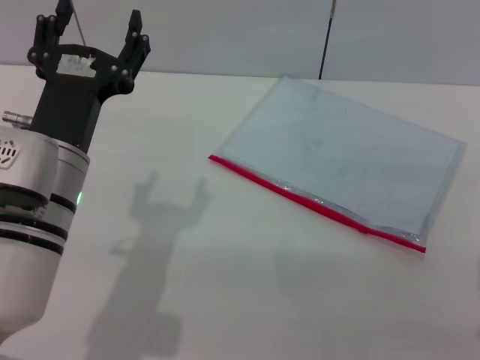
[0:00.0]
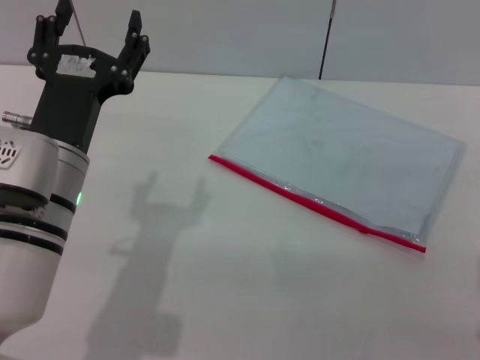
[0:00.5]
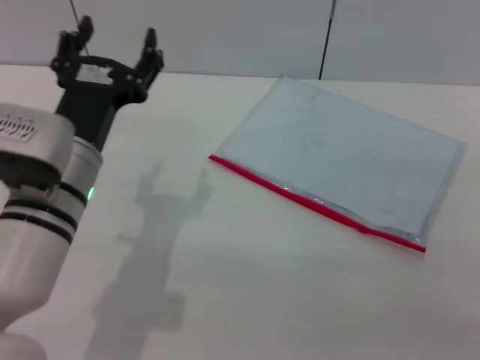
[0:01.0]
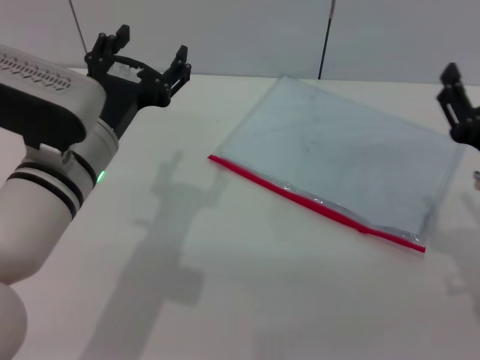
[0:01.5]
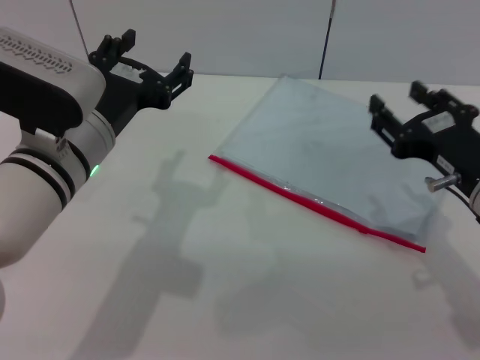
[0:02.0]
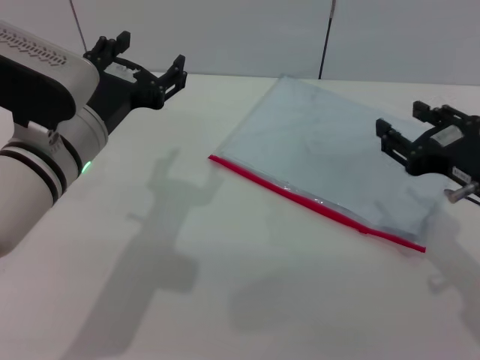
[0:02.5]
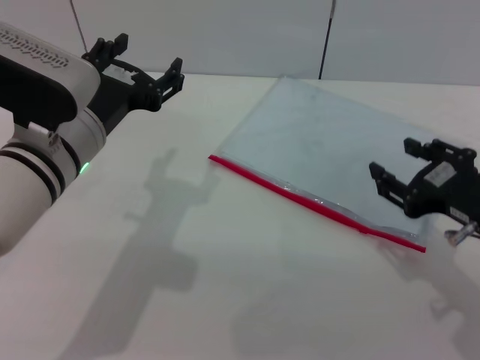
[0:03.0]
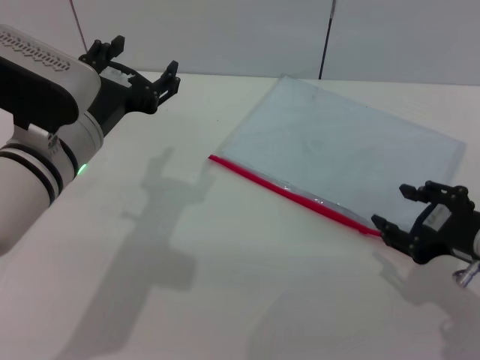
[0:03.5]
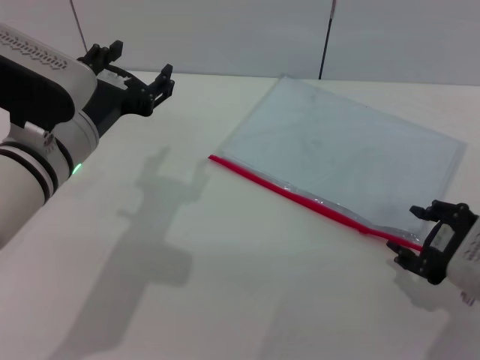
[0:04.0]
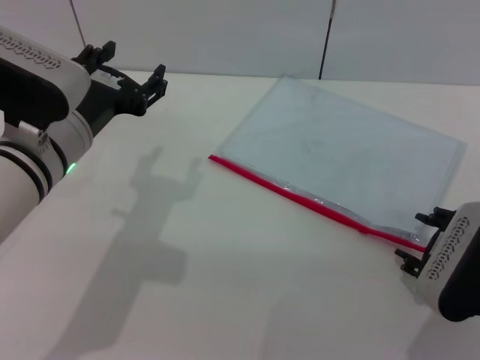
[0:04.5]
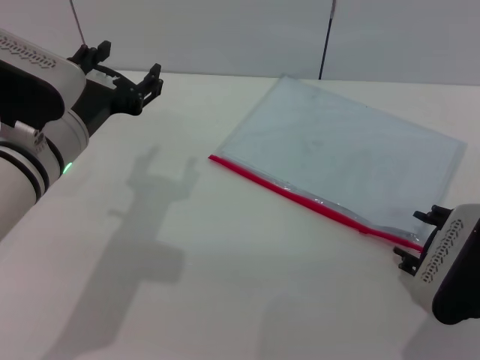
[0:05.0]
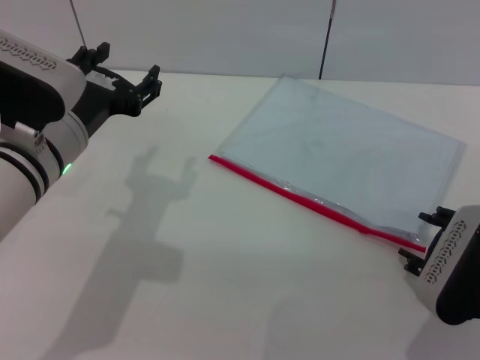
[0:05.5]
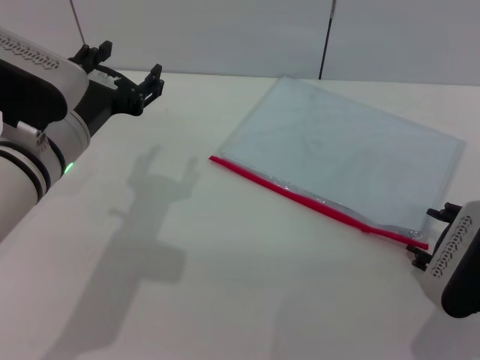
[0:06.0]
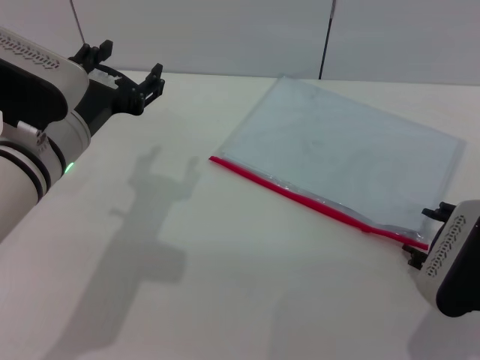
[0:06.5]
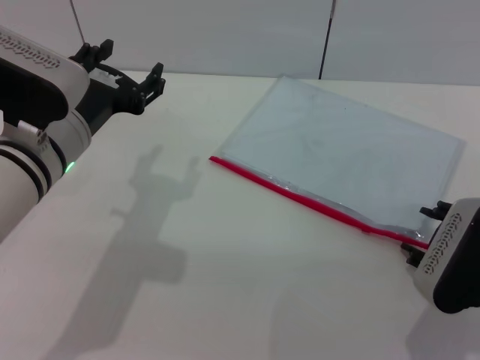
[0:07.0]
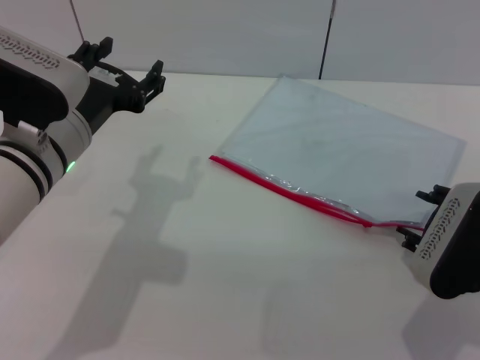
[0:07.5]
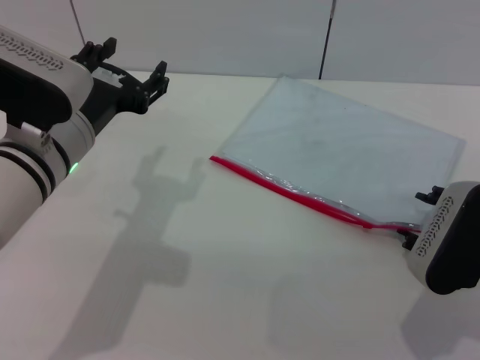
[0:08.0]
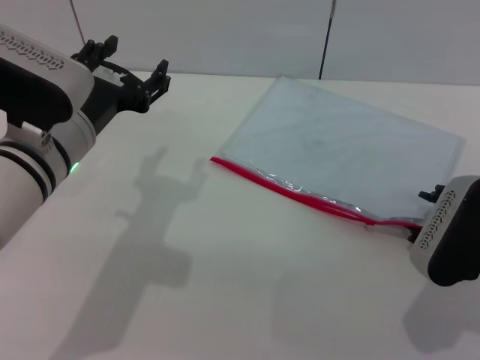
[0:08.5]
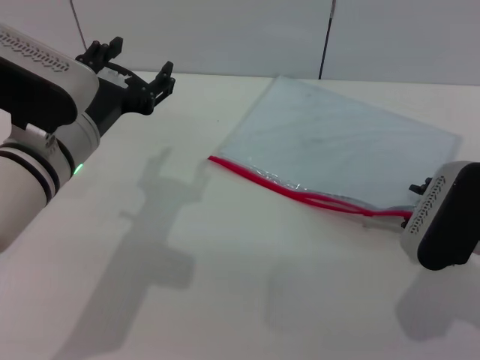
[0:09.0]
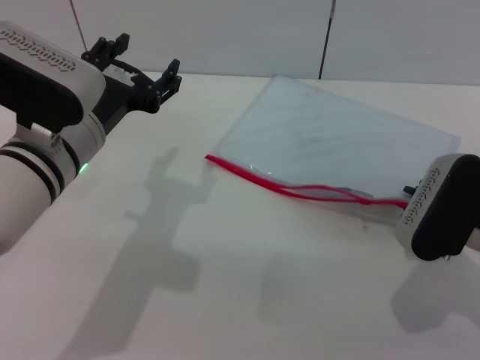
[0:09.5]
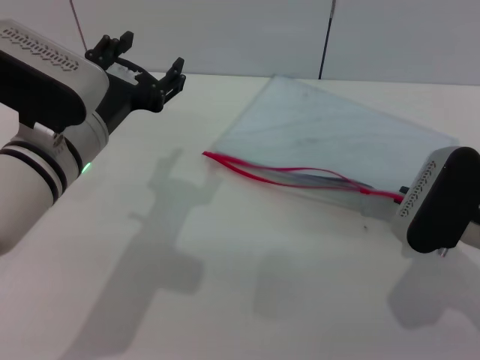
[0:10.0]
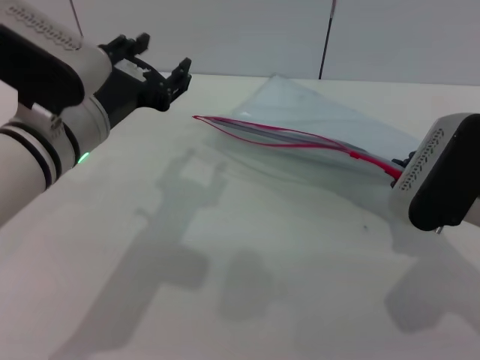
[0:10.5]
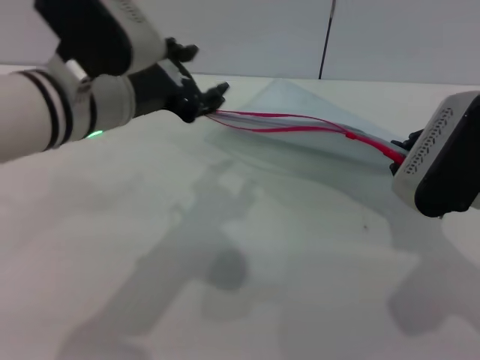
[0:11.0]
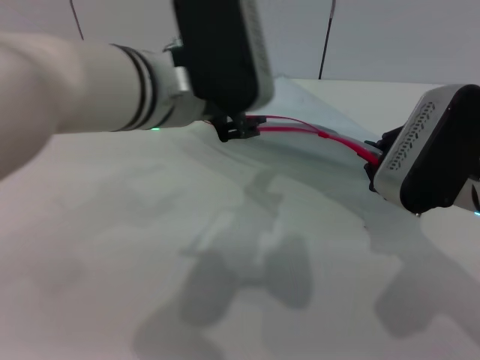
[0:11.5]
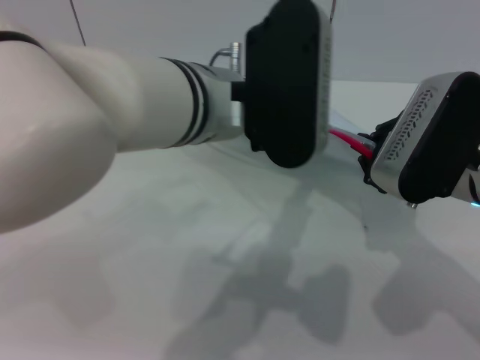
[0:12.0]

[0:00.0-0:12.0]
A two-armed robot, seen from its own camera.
Step, 0:00.0 to 0:10.5: Pick up the transparent plastic bag with the right gripper.
0:00.0 to 0:02.0: The right gripper moves forward, roughly 10 cm.
0:04.0 to 0:08.0: There are only small adjustments of the grippers.
0:08.0 to 0:10.0: The right gripper closes its fingers.
0:10.0 to 0:12.0: The left gripper moves to the right and upward, approximately 15 cm. The right gripper travels upward by some 5 cm.

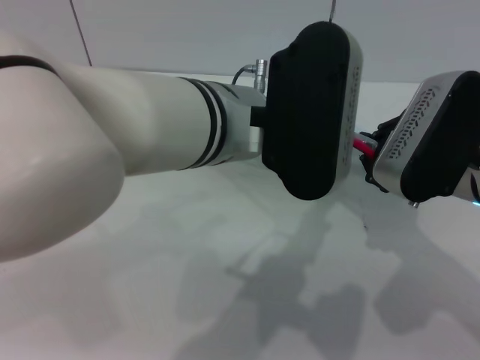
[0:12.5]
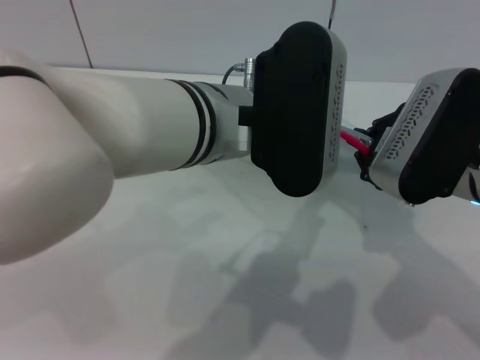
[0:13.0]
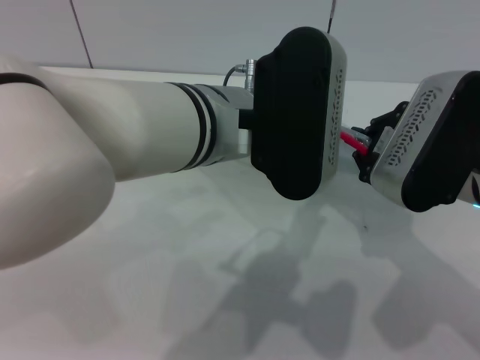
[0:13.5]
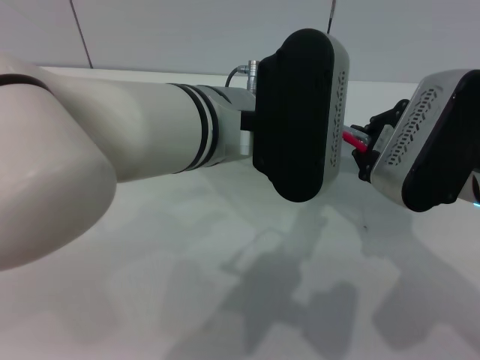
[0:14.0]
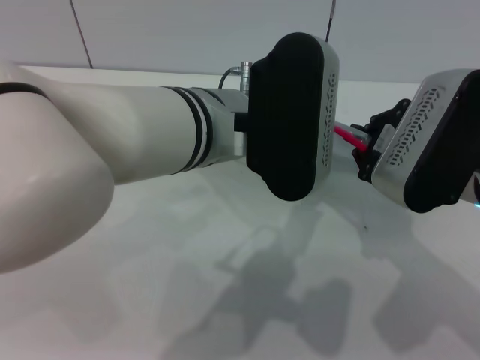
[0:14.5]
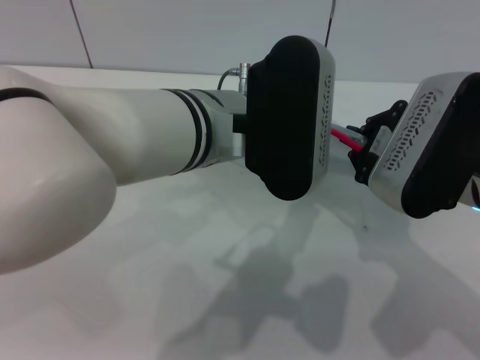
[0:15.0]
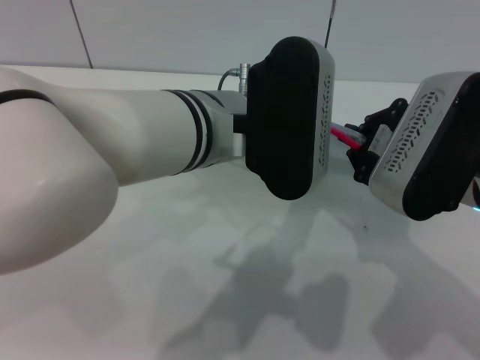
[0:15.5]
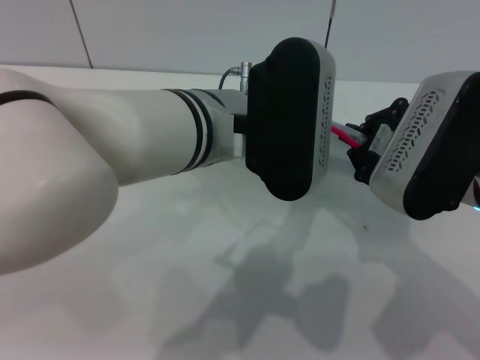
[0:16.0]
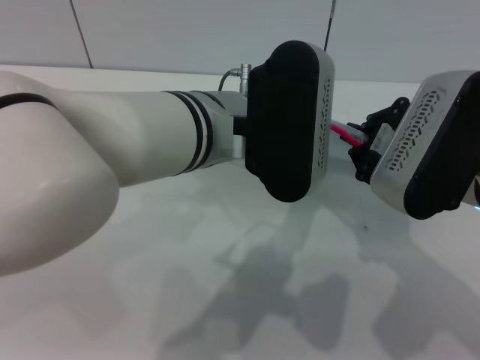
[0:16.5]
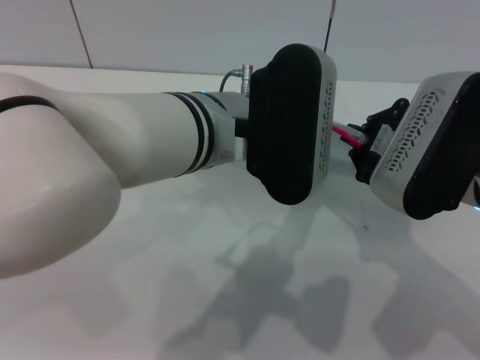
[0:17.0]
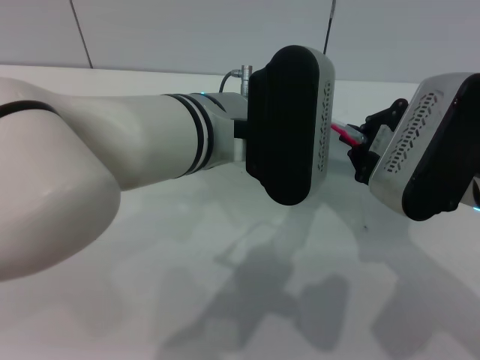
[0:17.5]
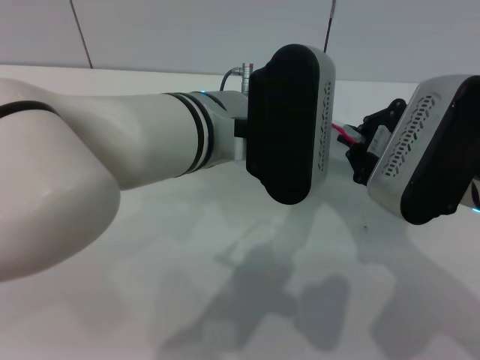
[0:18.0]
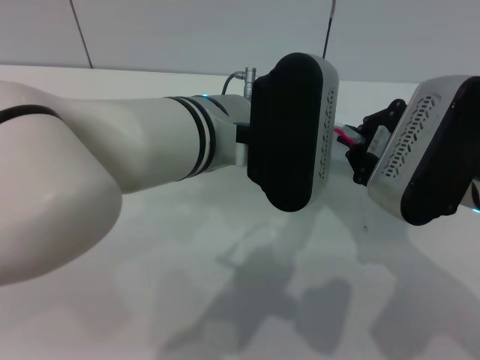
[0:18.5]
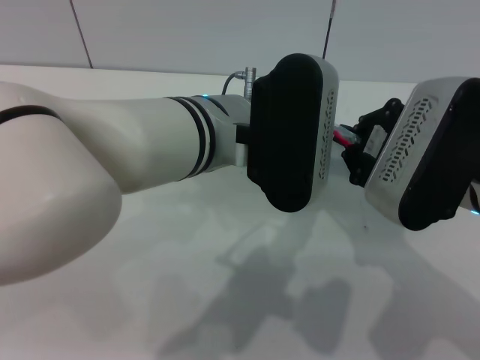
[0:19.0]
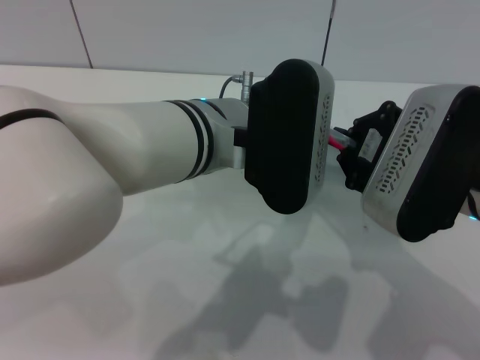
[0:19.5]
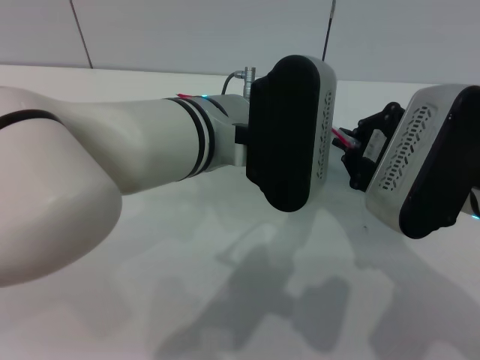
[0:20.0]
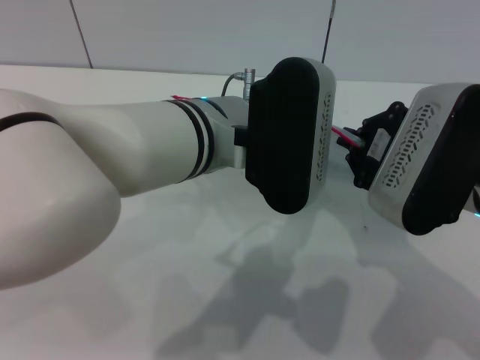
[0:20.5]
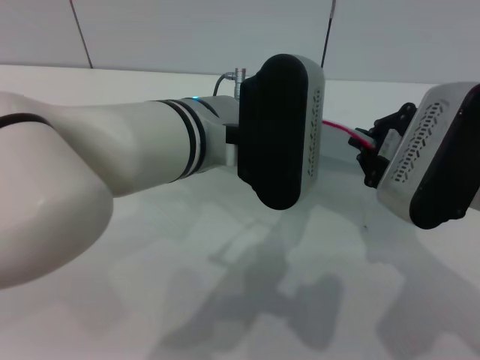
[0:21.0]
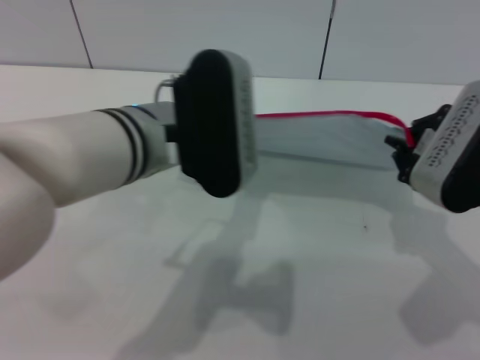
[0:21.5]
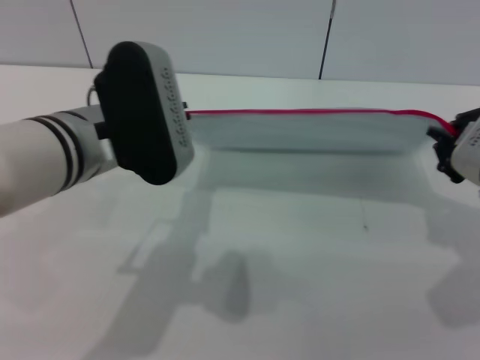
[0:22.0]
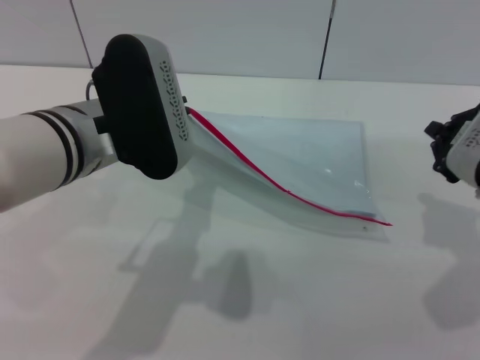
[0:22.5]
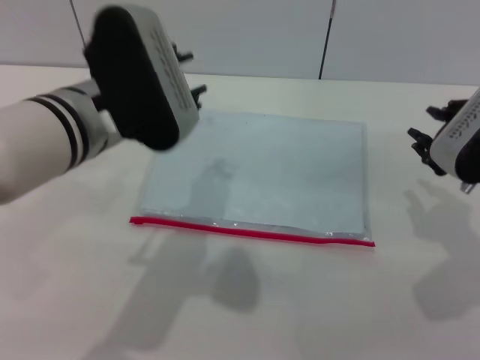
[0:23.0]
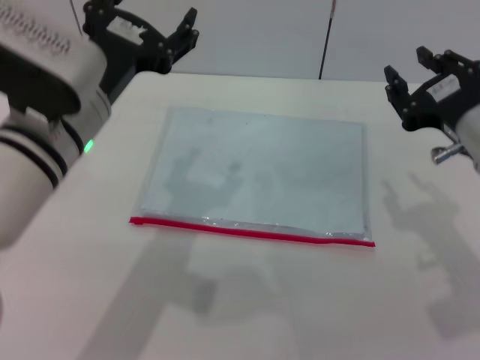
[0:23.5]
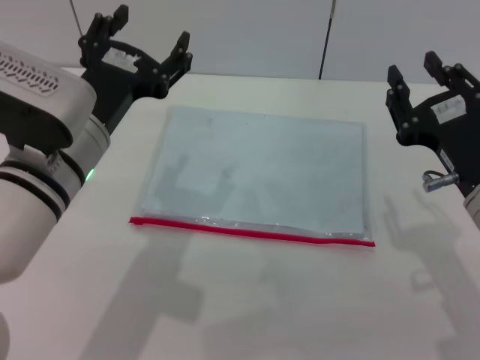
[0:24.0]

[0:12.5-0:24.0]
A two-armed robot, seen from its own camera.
Step, 0:12.5 to 0:22.5: Pulling up the zipper on the transparent plastic bag with the left gripper to close it.
0:12.5 to 0:14.5: The grippers move only a little.
0:14.5 to 0:16.5: The left gripper closes.
0:16.5 to 0:20.0: Both grippers stay put.
0:20.0 to 0:22.0: The right gripper goes some 5 cm to the right. Meanwhile the left gripper is displaced to the left by approximately 10 cm.
0:22.0 to 0:24.0: The left gripper opens; the right gripper changes place by approximately 5 cm, and opens its fingers.

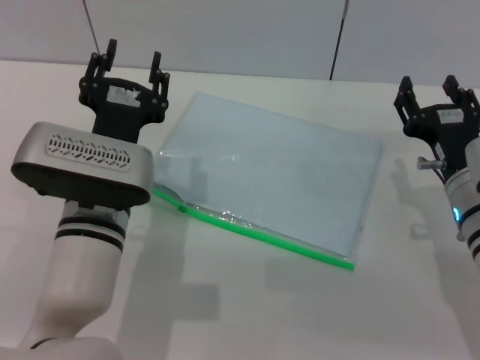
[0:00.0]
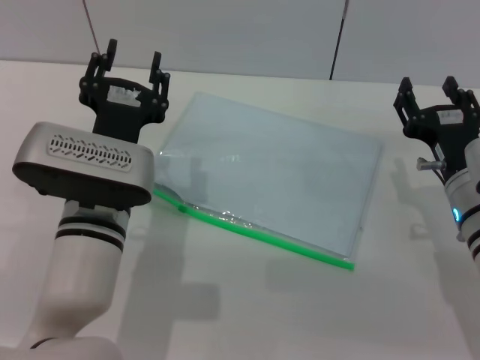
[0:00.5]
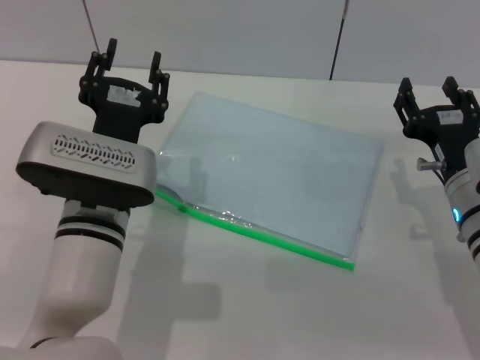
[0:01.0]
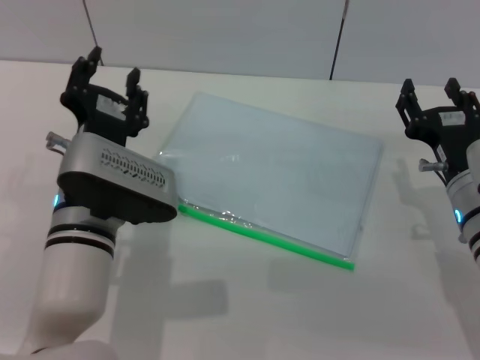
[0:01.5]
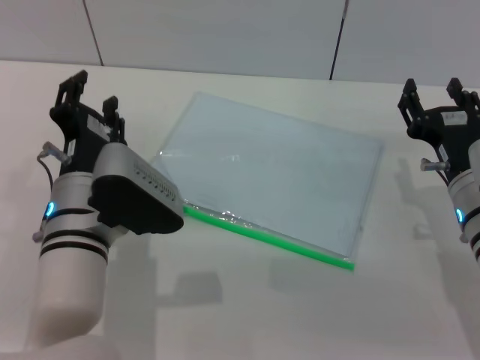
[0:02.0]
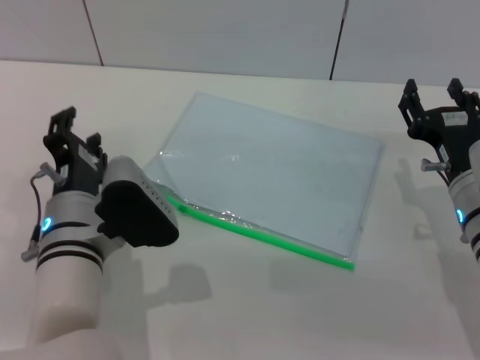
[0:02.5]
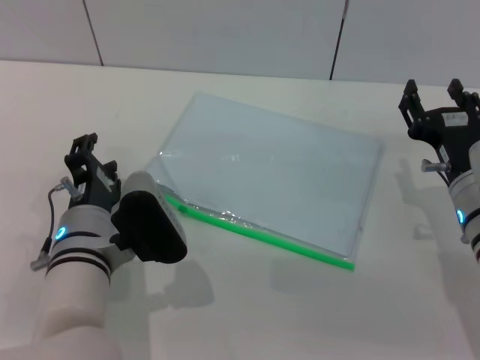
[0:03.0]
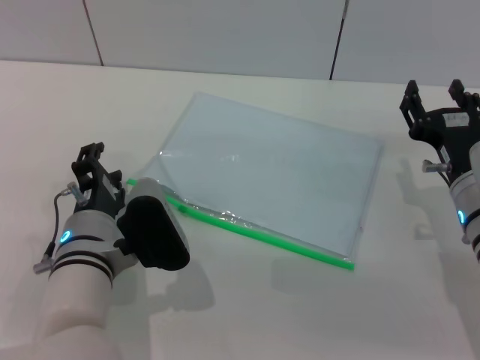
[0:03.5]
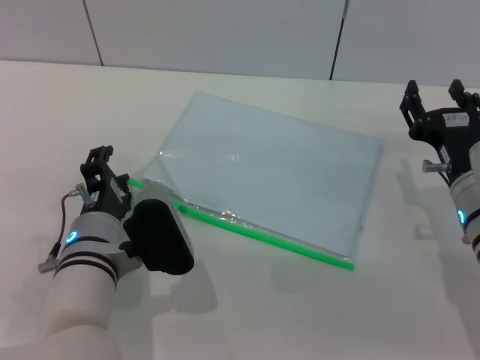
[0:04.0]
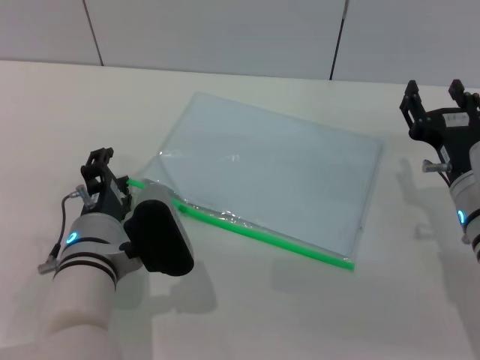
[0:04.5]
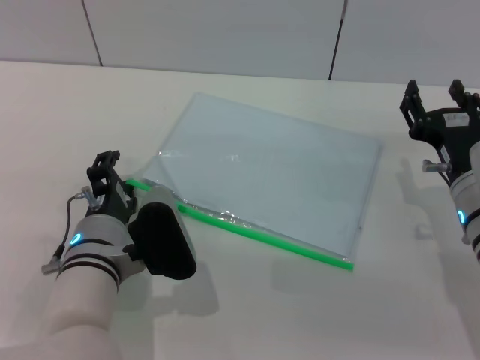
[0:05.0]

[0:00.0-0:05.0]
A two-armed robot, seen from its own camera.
0:02.5 to 0:05.0: The grippers stay close to where they were, moving slightly.
